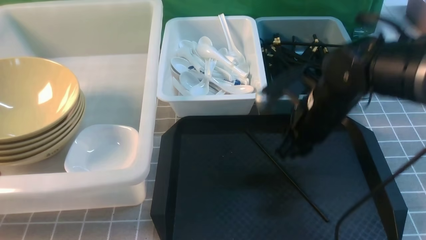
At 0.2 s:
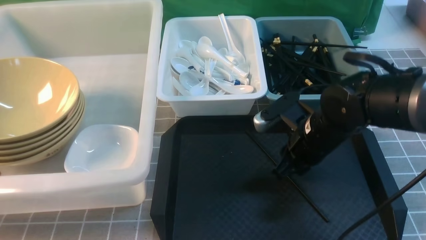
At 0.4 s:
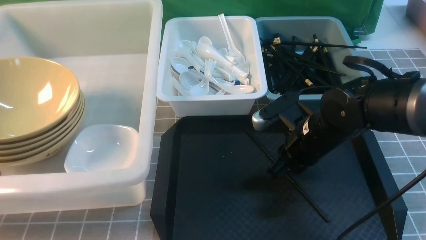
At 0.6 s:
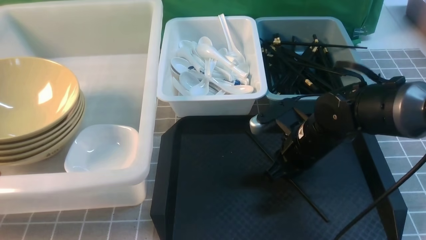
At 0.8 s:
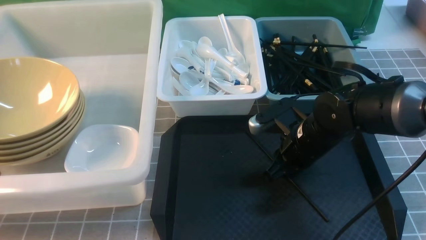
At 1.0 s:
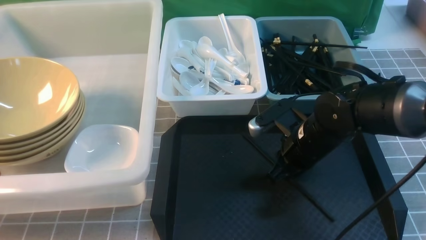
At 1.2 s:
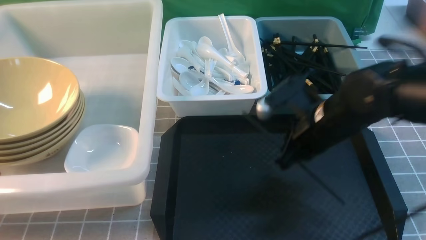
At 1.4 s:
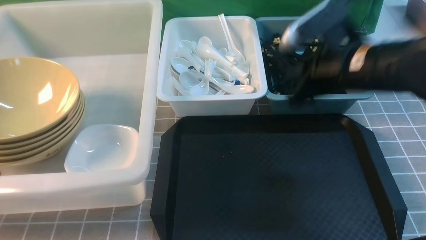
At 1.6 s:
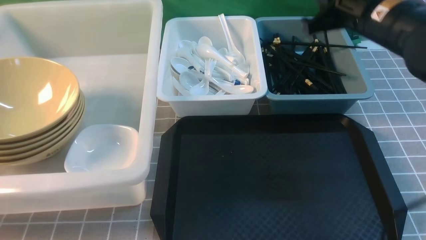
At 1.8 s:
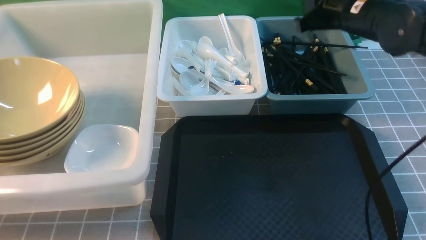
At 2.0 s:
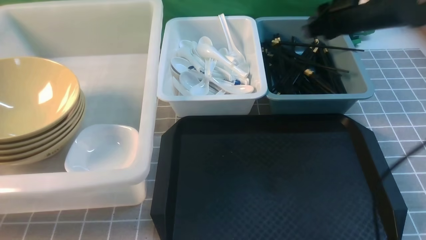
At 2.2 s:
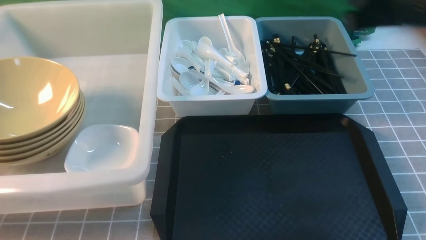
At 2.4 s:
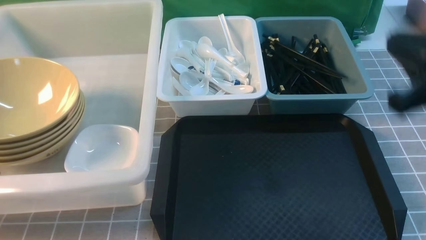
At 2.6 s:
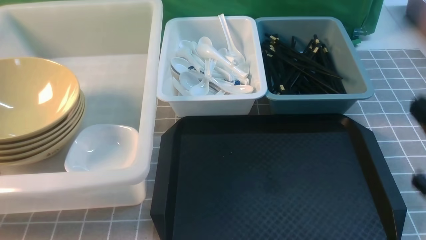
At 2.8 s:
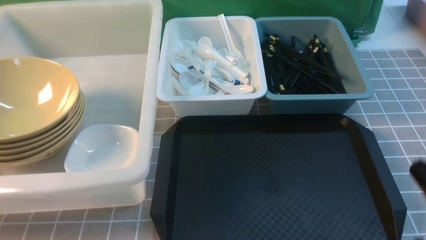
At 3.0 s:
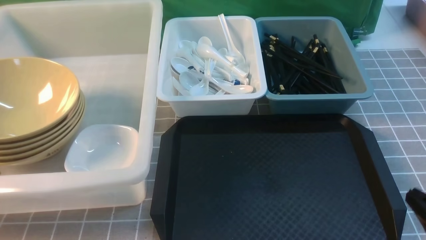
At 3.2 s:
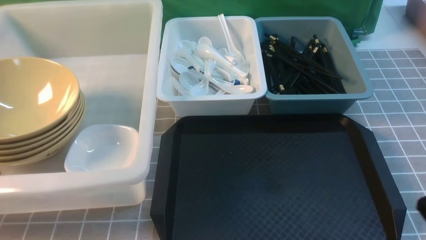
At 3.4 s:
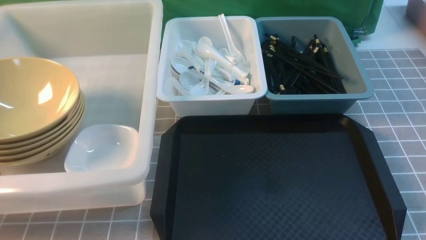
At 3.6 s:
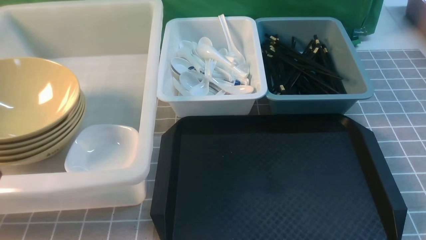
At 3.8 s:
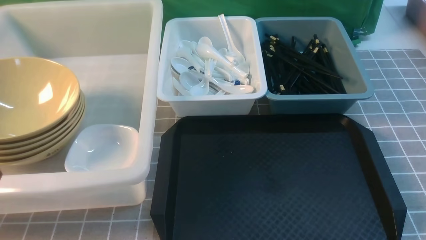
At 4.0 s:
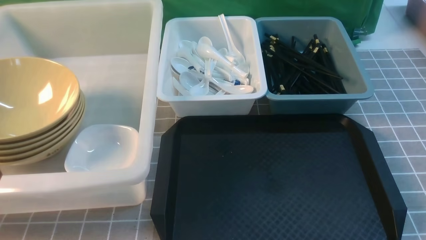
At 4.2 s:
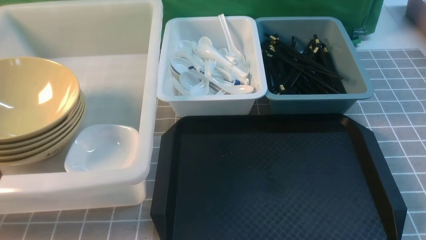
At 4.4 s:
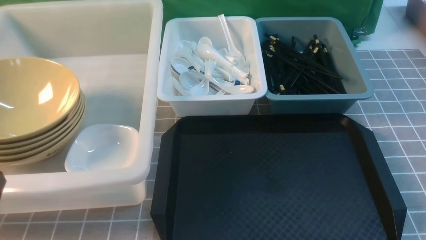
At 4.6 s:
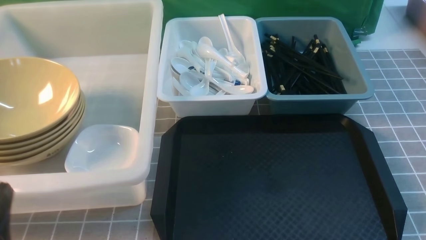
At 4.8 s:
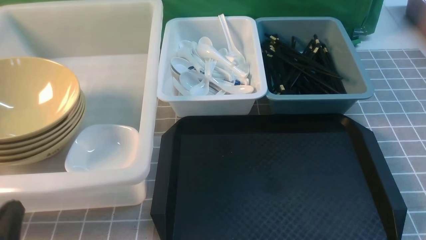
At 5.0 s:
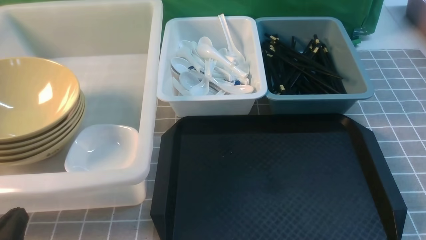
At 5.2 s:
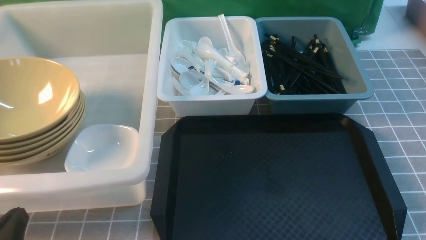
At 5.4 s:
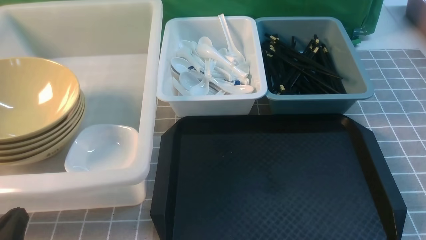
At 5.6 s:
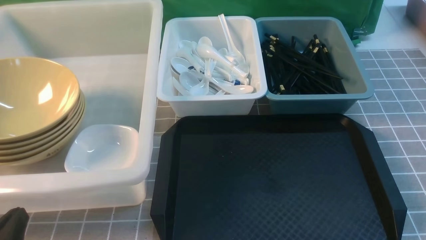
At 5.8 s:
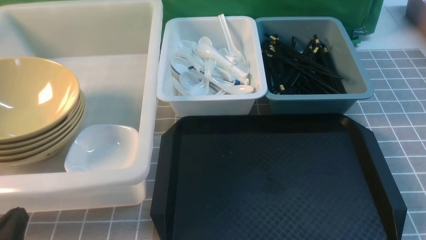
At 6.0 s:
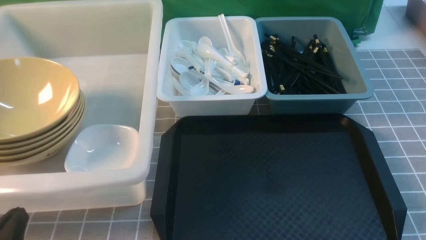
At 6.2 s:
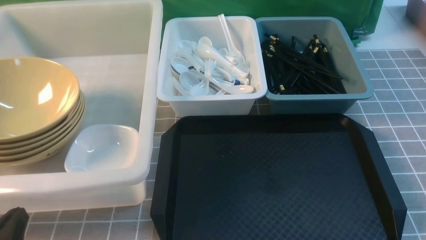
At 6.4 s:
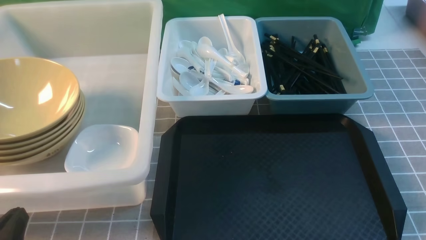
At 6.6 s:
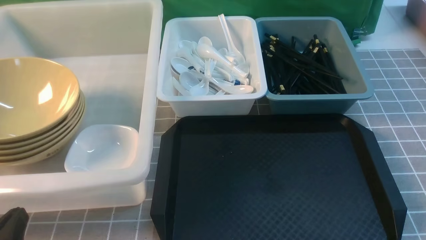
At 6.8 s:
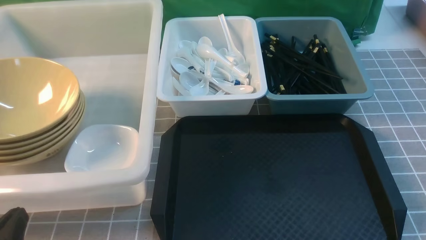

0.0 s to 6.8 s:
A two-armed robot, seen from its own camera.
Task of the whole recording: on grey table put chopsticks spoon bowls plates into blue grey white boxes.
Step, 0.0 to 1.0 s: use the right arm to grab a chopstick.
Step, 1.4 to 2.0 s: use the right arm to put a chopstick into the small storage box on the right.
0.0 to 1.4 s: The right gripper heads upward, covering some 10 cm, and closes.
1.4 to 2.8 s: The right gripper moves backward and to the right, about 25 cm.
4.0 to 5.4 s: The left gripper heads downward, covering about 10 cm.
5.4 to 6.8 s: Both grippers stay about where they are.
